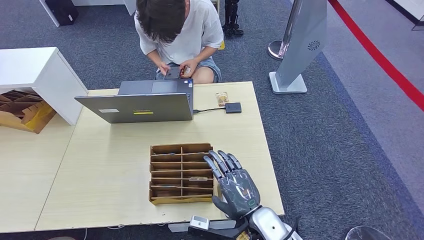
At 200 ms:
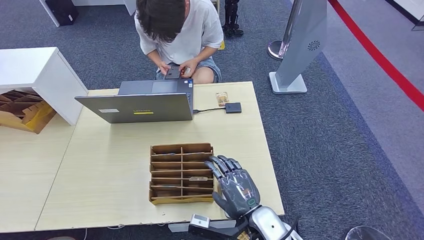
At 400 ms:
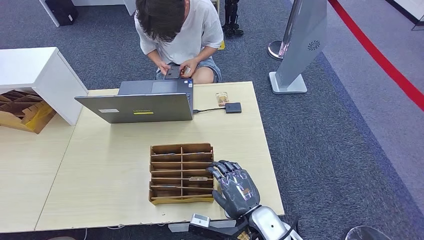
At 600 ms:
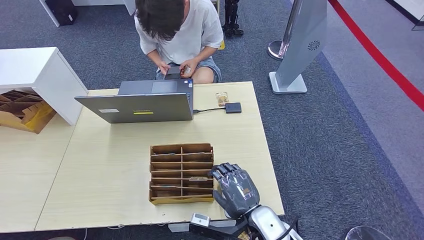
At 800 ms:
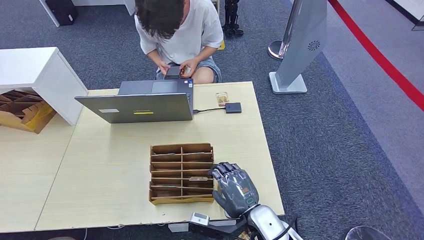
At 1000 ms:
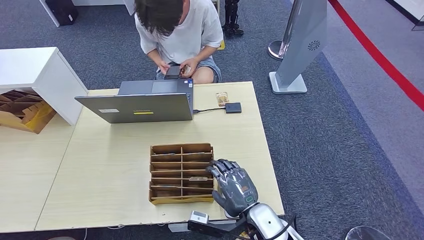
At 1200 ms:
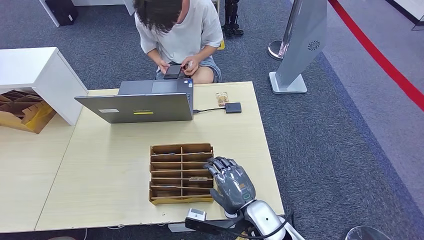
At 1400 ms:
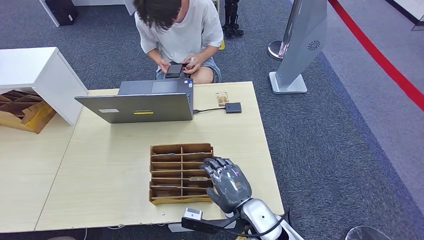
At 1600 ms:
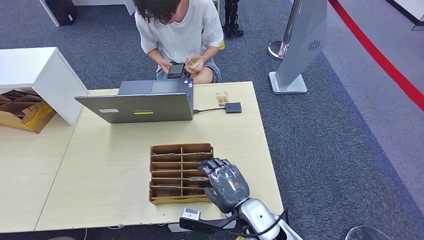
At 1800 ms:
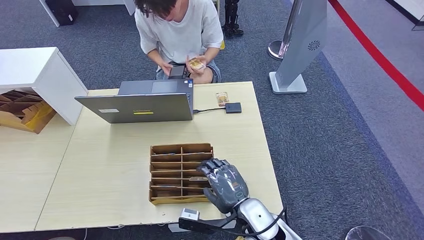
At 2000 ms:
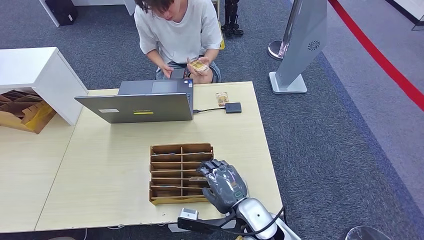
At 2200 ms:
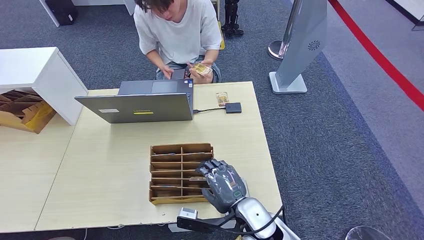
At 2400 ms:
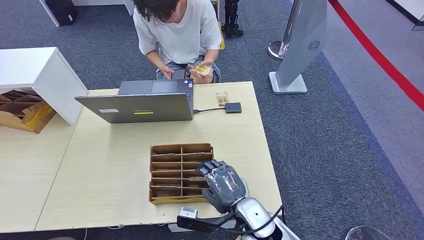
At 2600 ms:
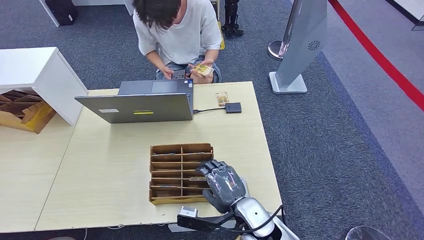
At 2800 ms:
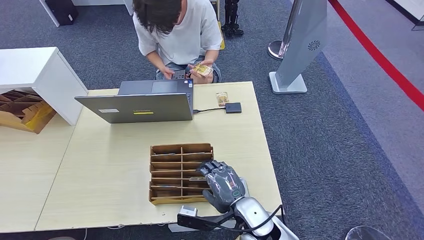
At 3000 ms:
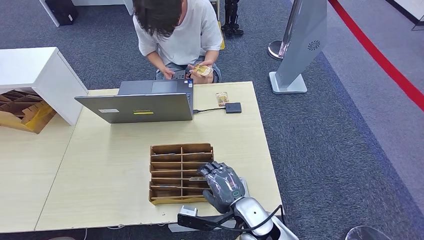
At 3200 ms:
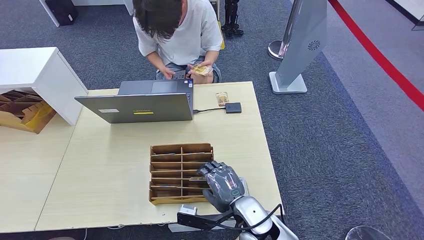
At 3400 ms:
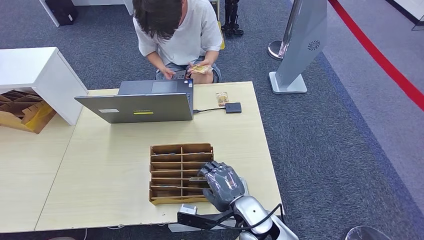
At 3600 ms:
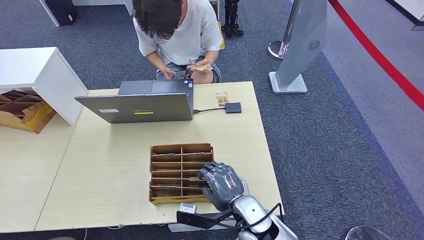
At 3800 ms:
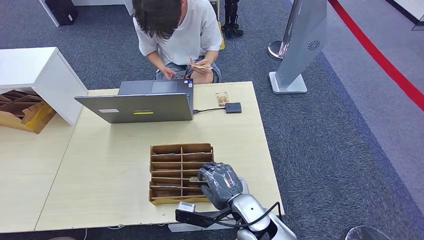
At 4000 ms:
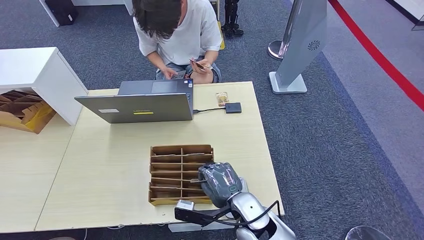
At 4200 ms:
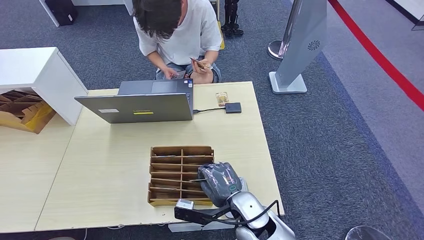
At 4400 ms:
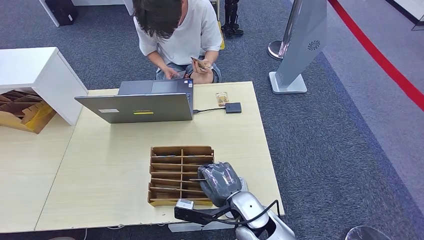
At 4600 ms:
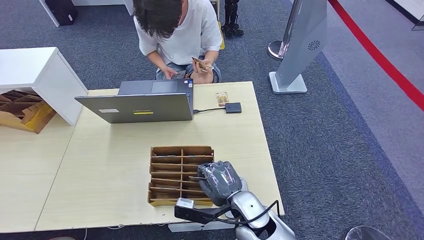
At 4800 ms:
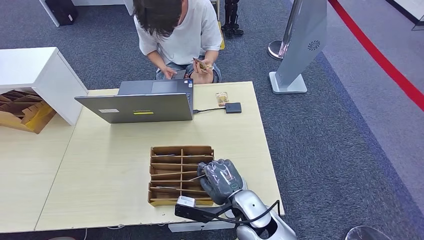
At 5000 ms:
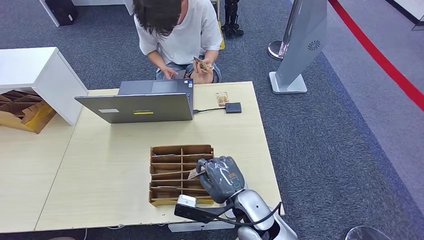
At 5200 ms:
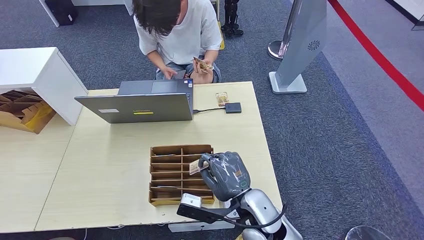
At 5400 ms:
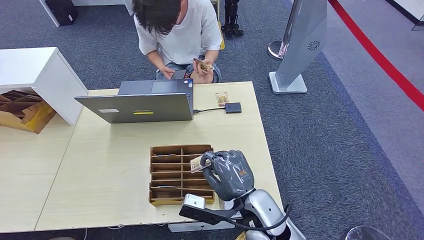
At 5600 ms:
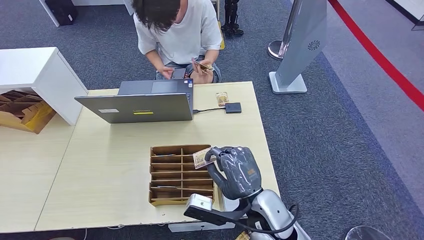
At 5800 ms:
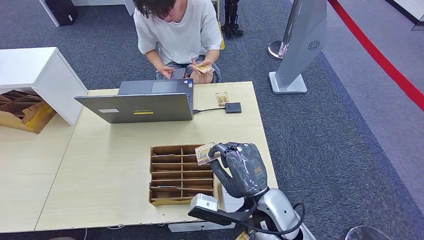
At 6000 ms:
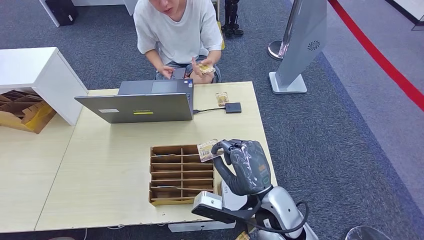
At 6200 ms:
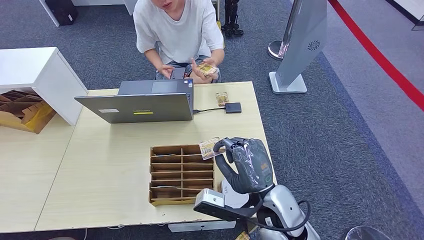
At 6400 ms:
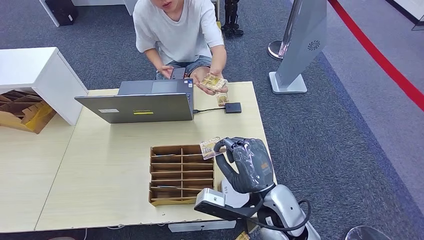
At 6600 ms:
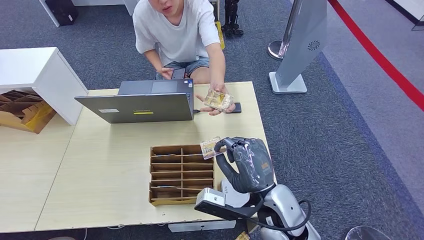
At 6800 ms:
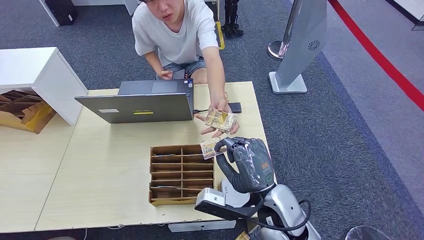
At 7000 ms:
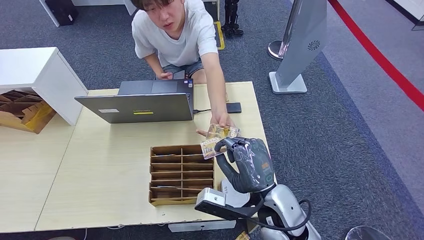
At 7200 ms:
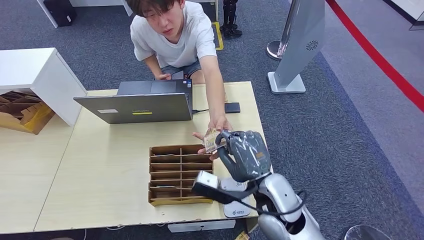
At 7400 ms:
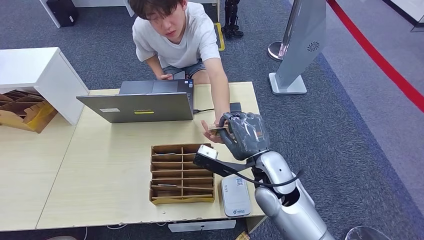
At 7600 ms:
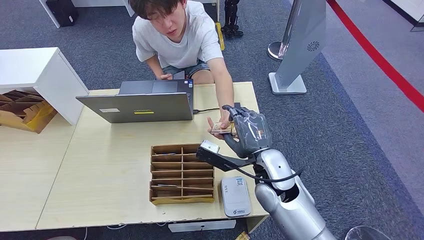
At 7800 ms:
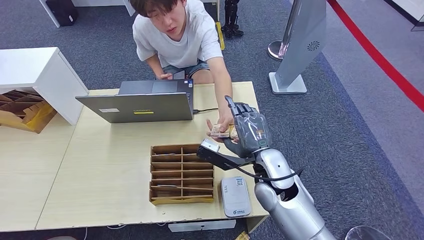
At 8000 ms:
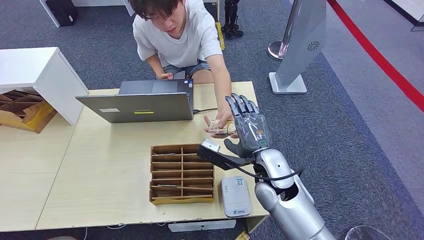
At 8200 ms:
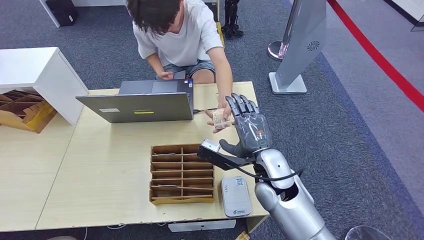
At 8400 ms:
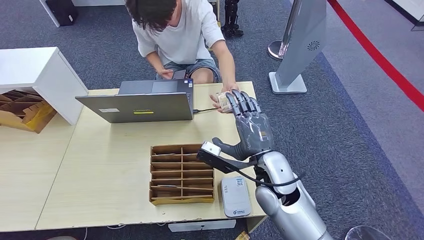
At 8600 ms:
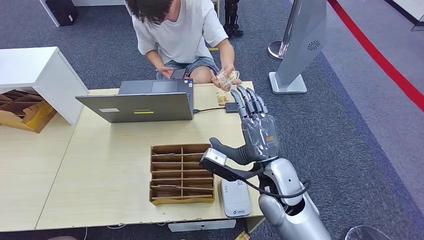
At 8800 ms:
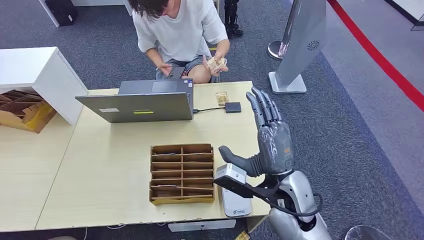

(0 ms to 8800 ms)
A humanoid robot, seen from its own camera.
Step, 0 ms - 4200 ms: Pick up the room key from the key card box.
Step, 4600 ms - 8600 ms: Hand the room key to the person.
0 ms - 4400 ms: The hands stay close to where they were, moving slightly.
4400 ms - 5800 ms: The right hand travels upward by about 10 cm.
5800 ms - 7400 ms: The right hand moves forward, some 10 cm.
7400 ms - 8800 ms: The right hand ends up roughly 5 cm from where it was.
